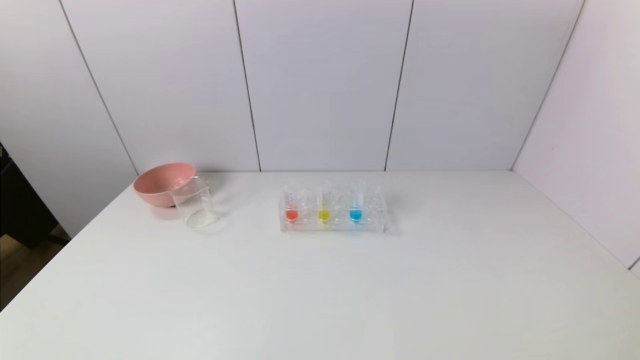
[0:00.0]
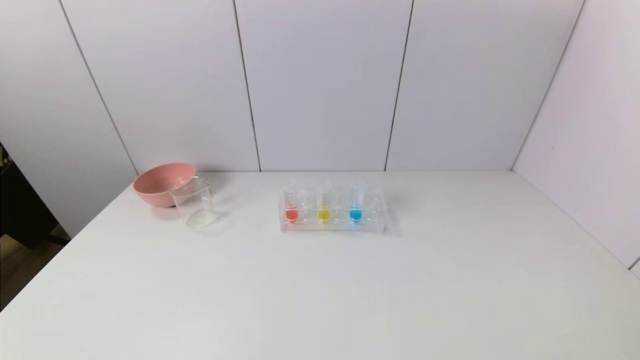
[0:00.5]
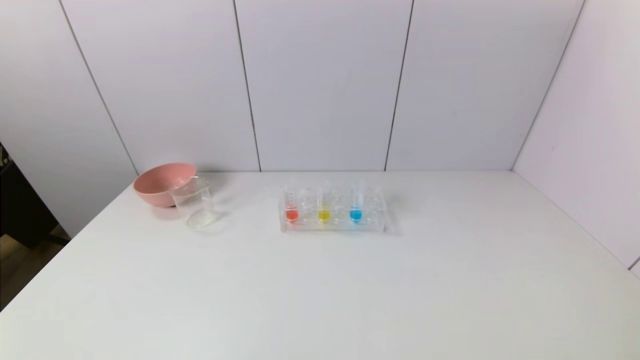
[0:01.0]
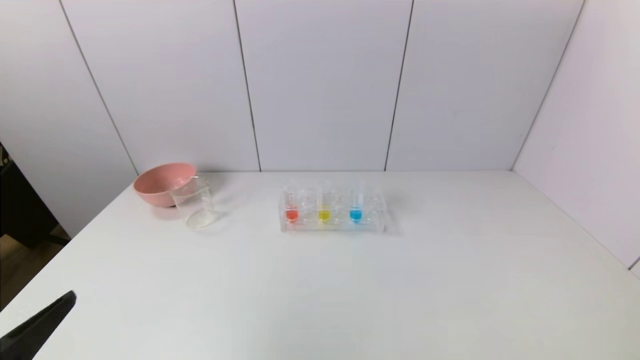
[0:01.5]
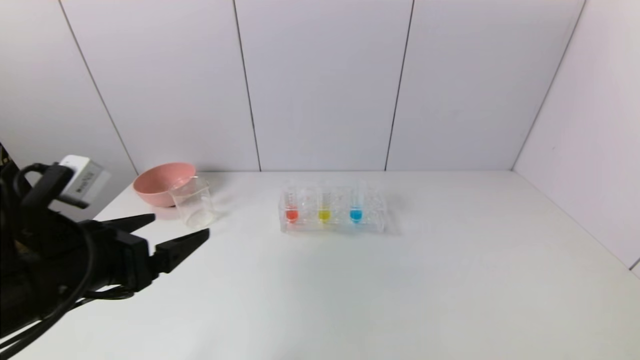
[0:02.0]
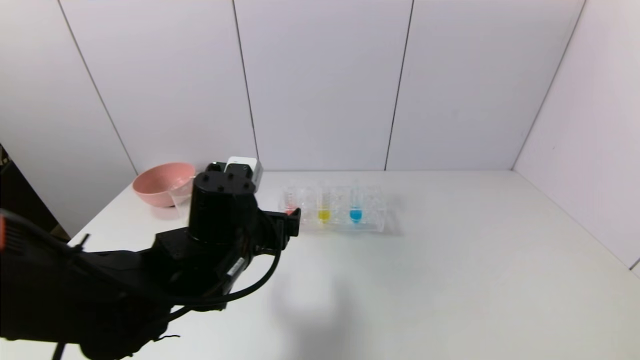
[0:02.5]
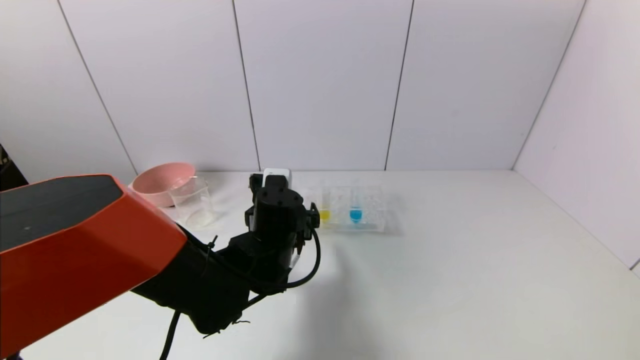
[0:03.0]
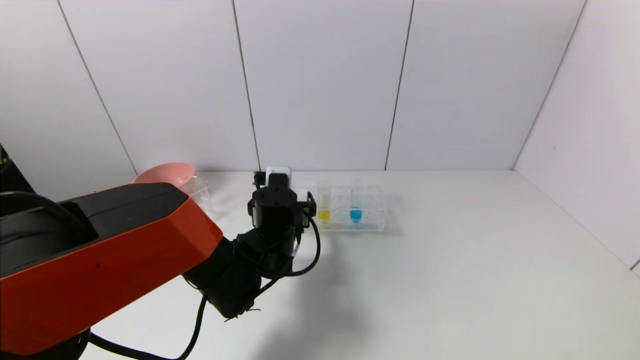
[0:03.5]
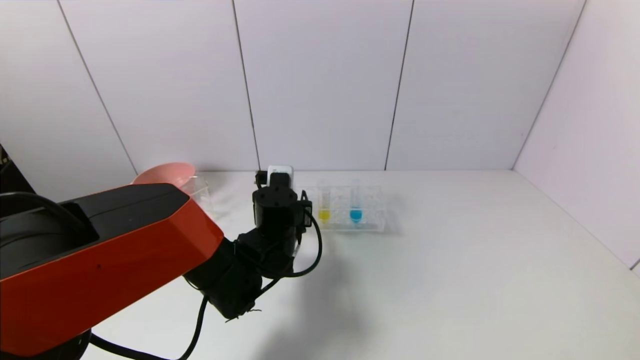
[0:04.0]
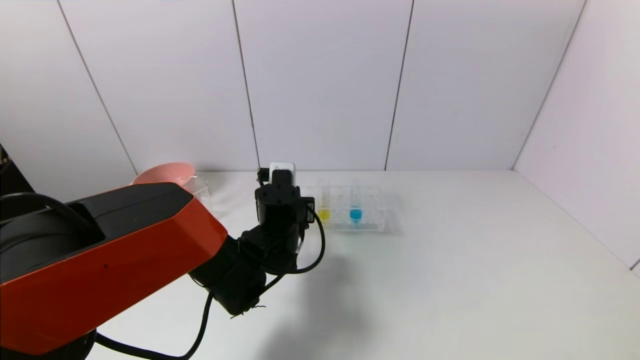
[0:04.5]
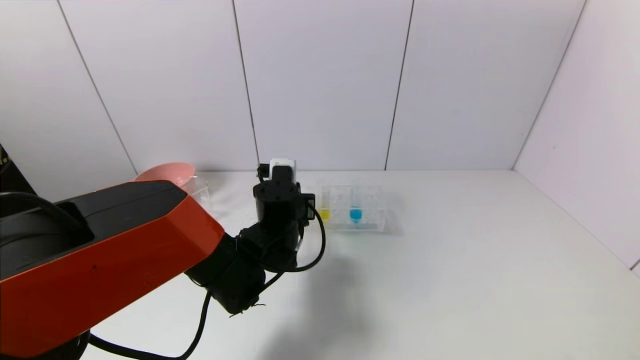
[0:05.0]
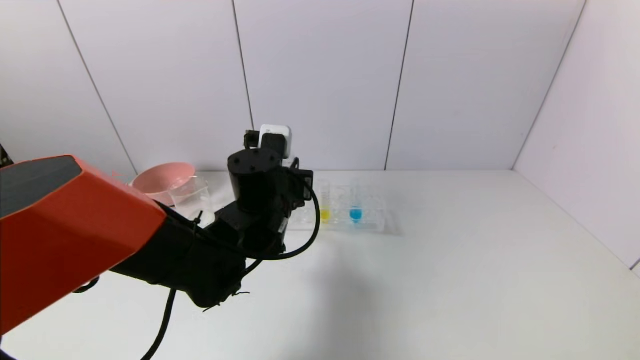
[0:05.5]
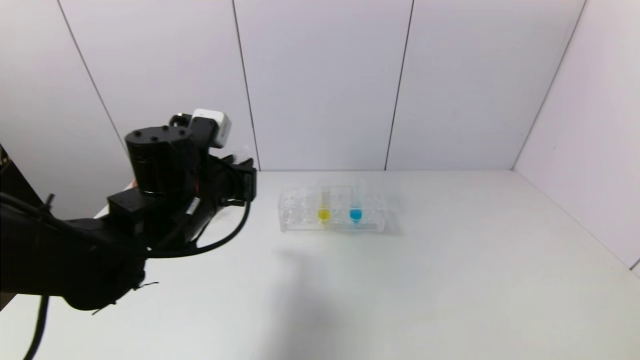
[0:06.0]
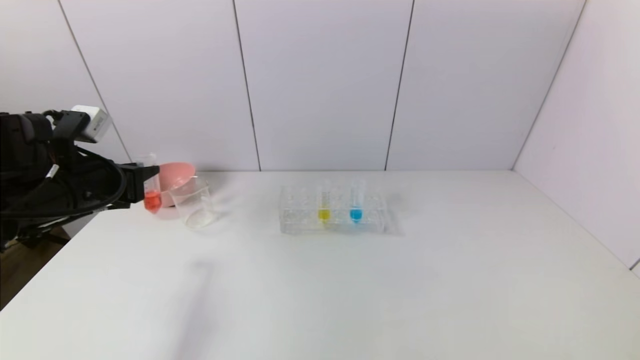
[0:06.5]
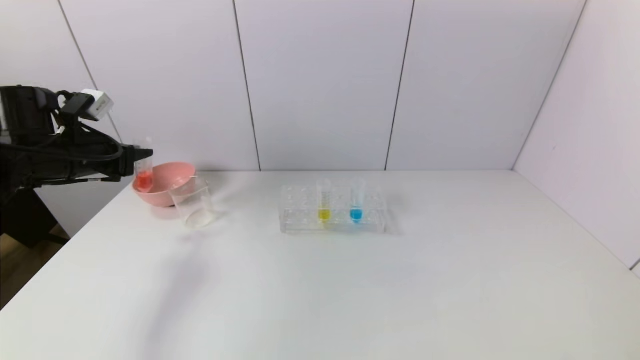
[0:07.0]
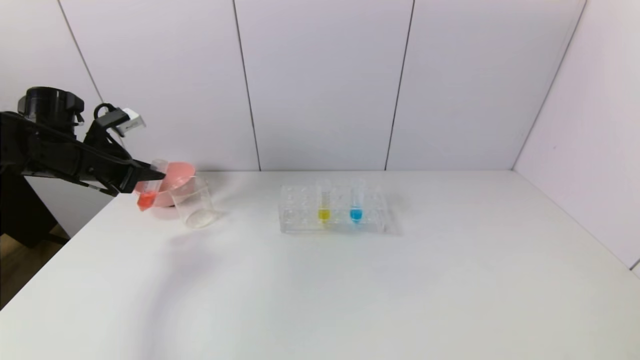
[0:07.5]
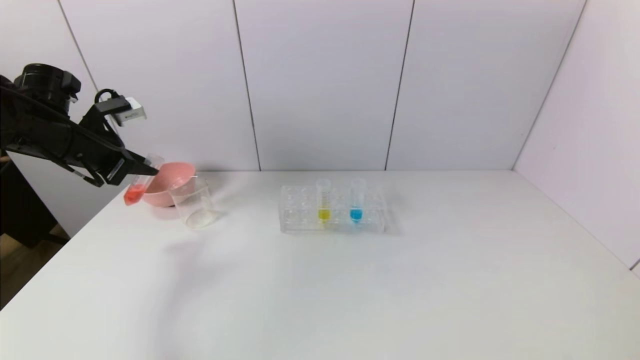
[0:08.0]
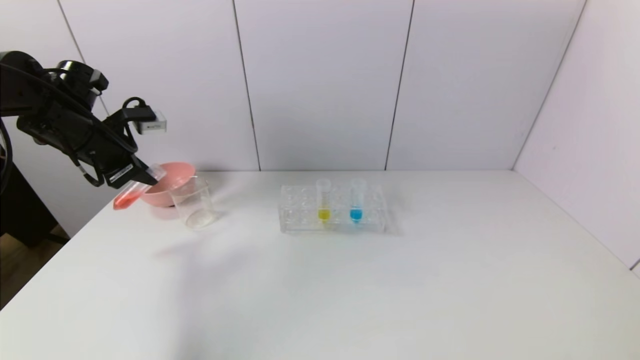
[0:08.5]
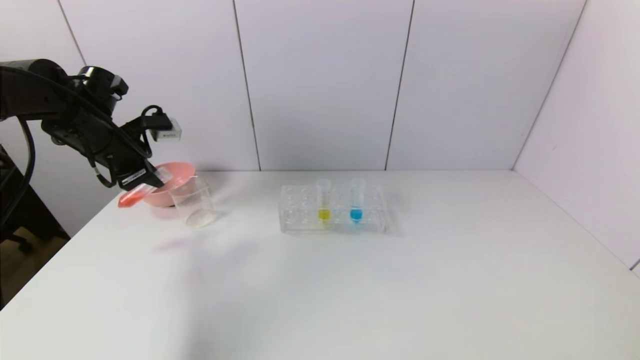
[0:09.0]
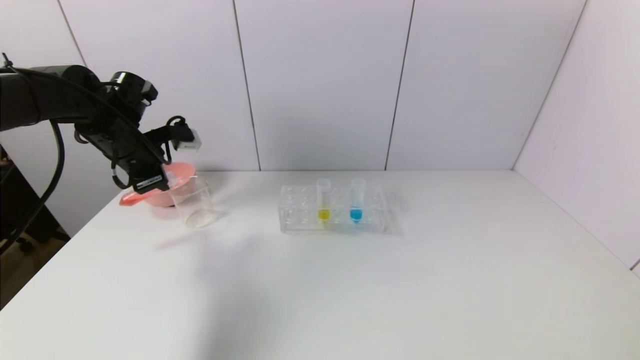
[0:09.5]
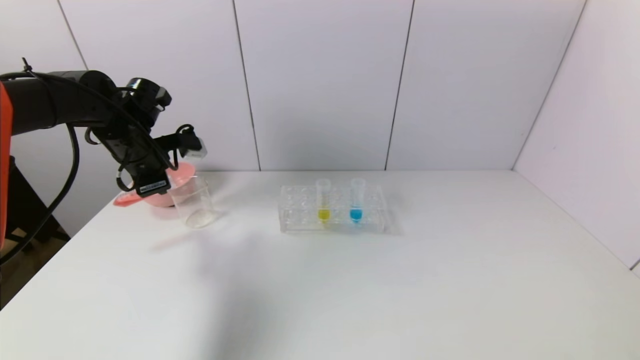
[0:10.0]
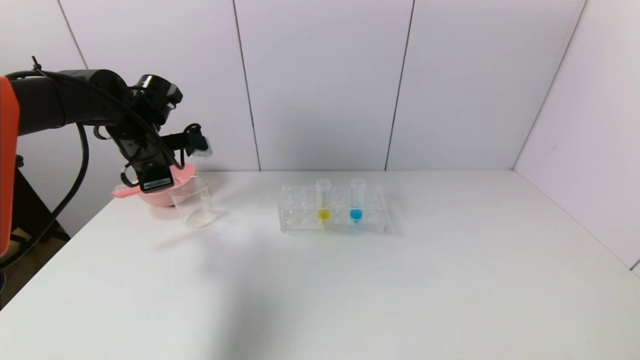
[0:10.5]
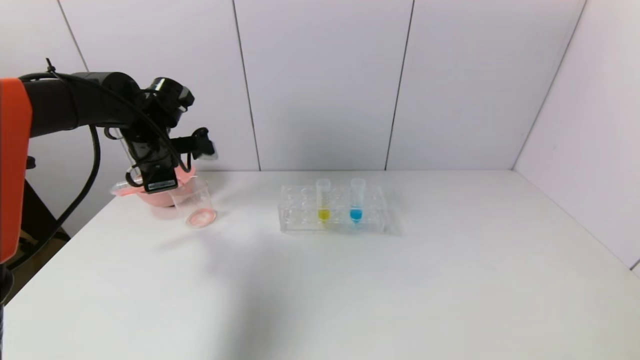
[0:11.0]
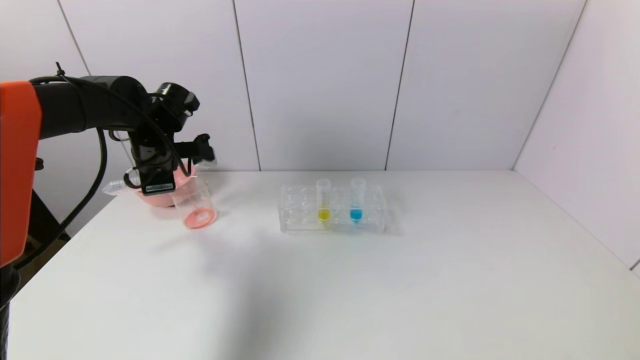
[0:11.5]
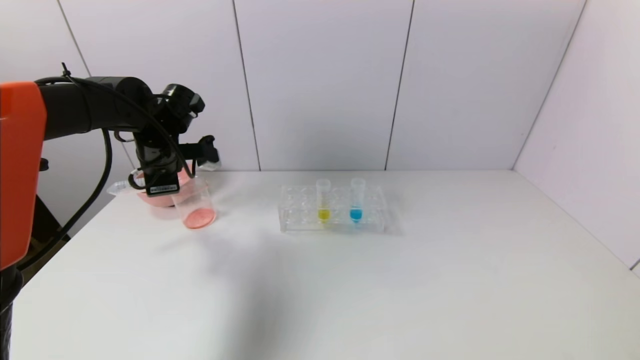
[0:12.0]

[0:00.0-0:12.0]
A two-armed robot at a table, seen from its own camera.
Task of the whole recording: pick up the test tube with yellow pigment and the test tube with red pigment by grippers and pour them into the beaker.
Step, 0:00.0 to 0:04.0: Grasp the red reagent with the left gripper.
0:00.0 to 0:02.0: The left gripper goes about 20 cm forward and upward.
0:02.0 to 0:04.0: The left gripper moves to the right, forward and downward, approximately 25 cm, and closes.
0:04.0 to 0:06.0: The left gripper goes approximately 15 cm to the left, upward and backward, and closes.
0:06.0 to 0:08.0: The left gripper travels to the left and forward by roughly 20 cm.
0:08.0 to 0:10.0: The left gripper moves to the right, approximately 5 cm.
0:10.0 to 0:12.0: The grippers make only small movements.

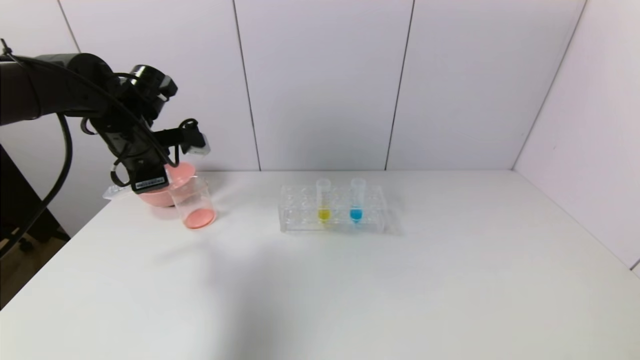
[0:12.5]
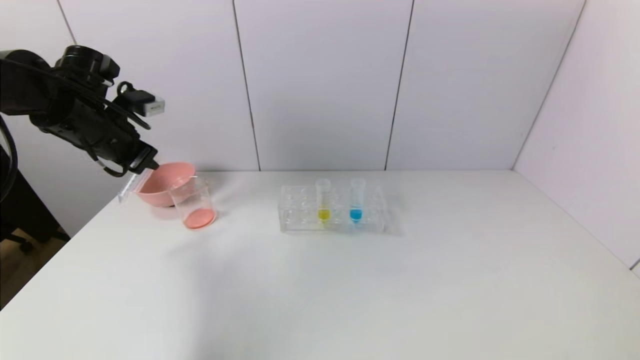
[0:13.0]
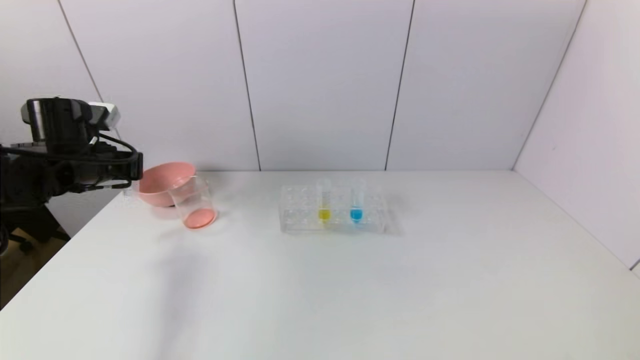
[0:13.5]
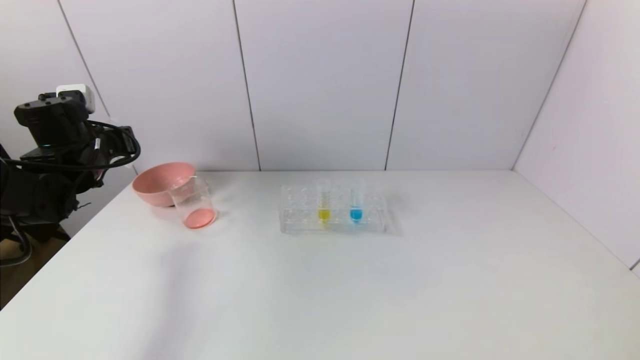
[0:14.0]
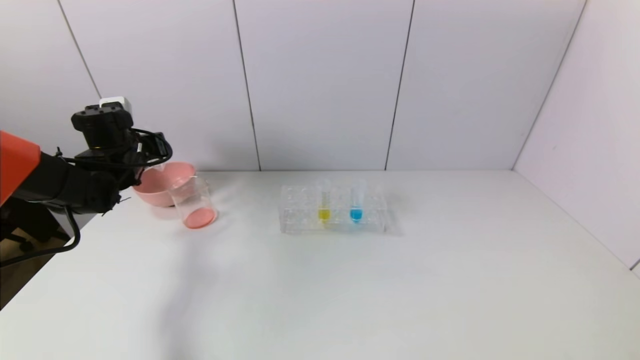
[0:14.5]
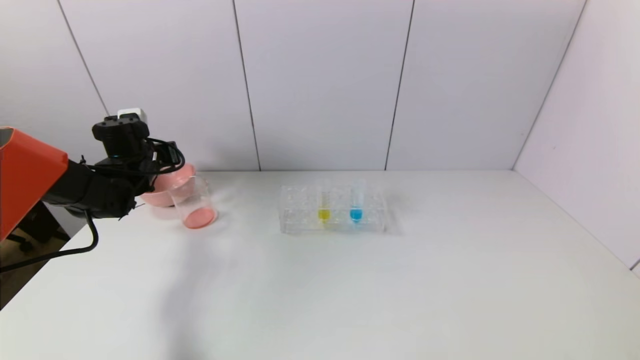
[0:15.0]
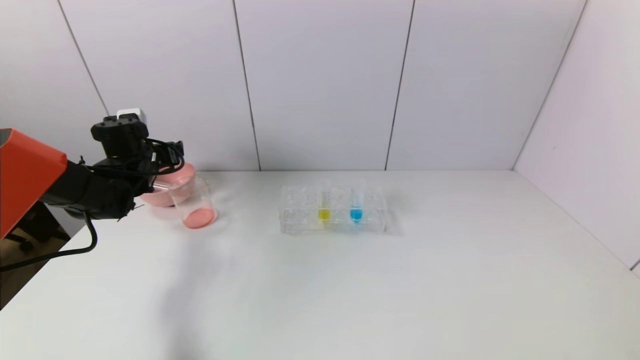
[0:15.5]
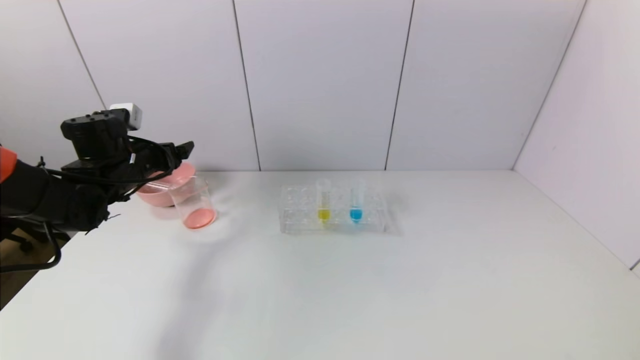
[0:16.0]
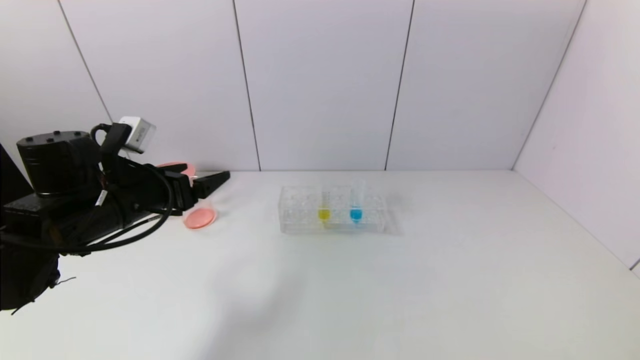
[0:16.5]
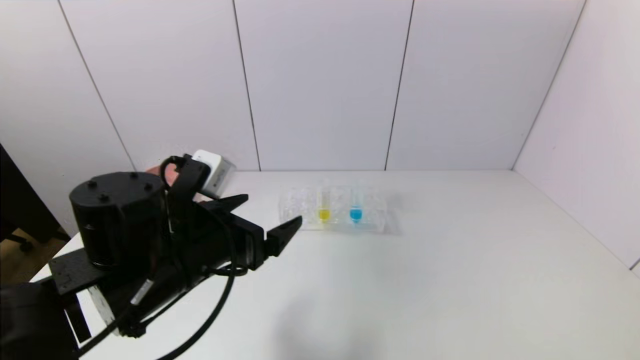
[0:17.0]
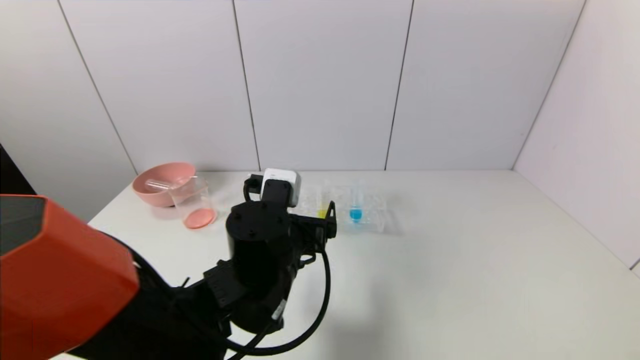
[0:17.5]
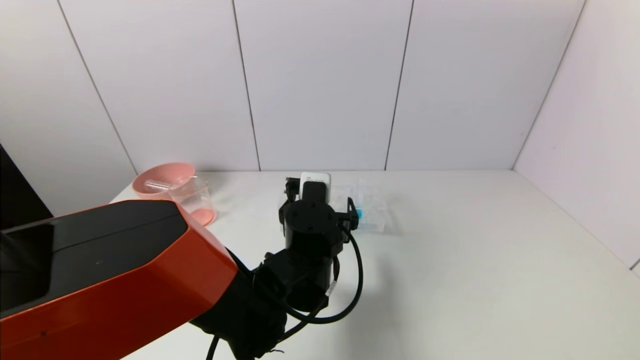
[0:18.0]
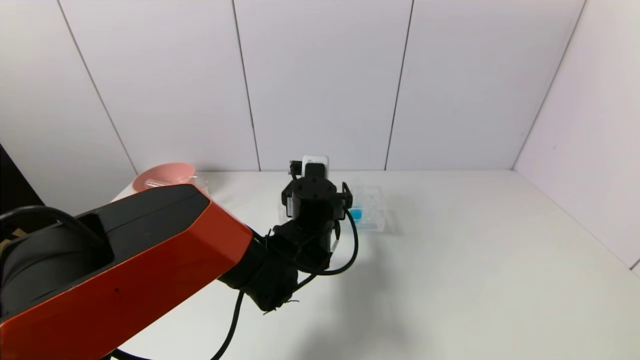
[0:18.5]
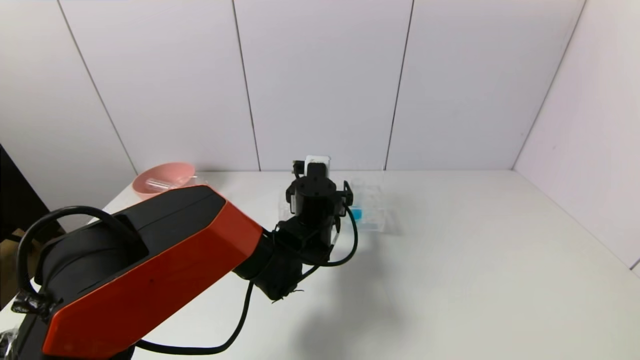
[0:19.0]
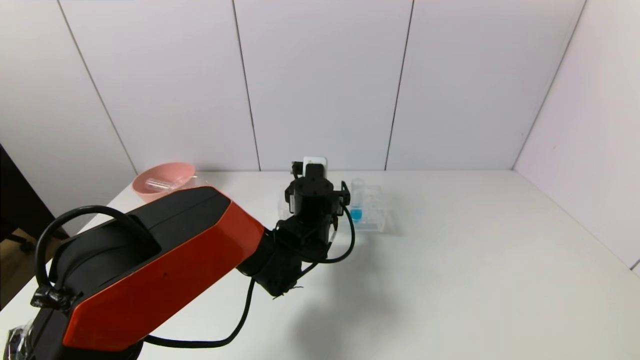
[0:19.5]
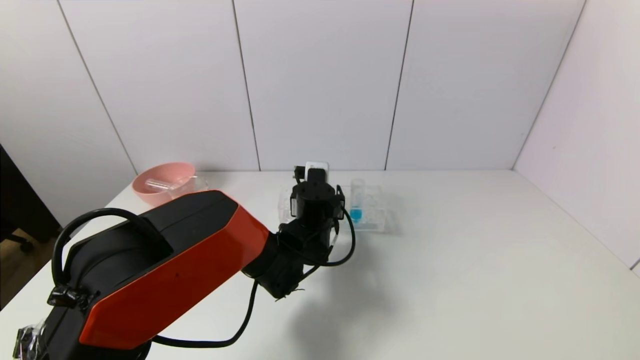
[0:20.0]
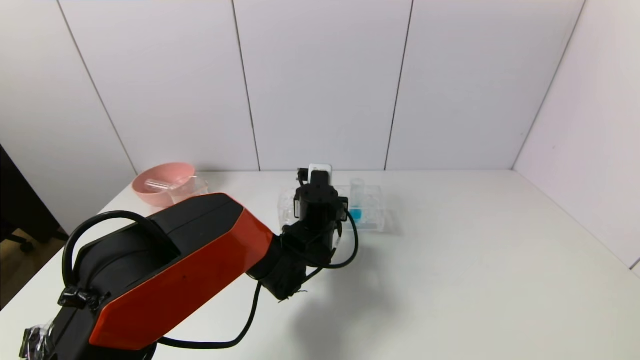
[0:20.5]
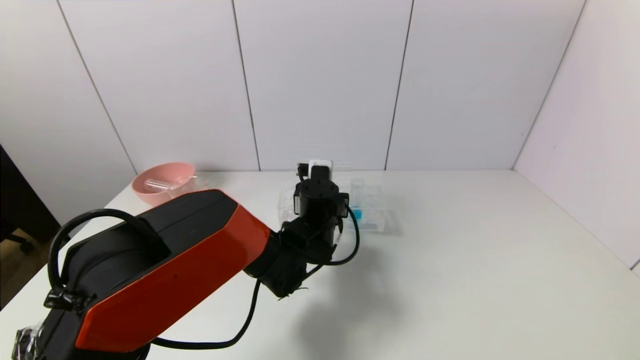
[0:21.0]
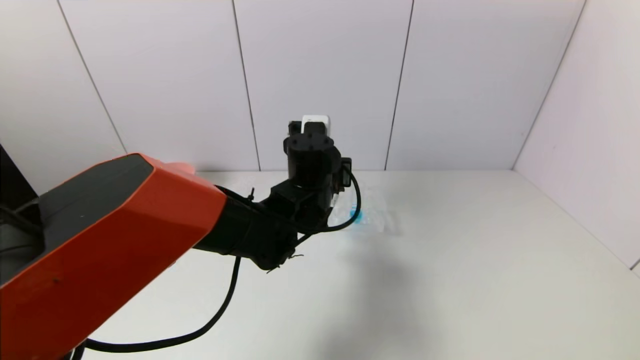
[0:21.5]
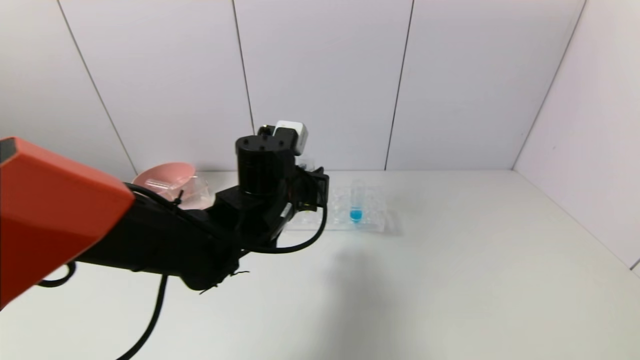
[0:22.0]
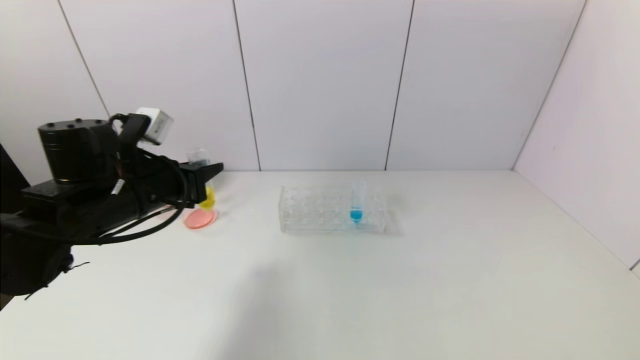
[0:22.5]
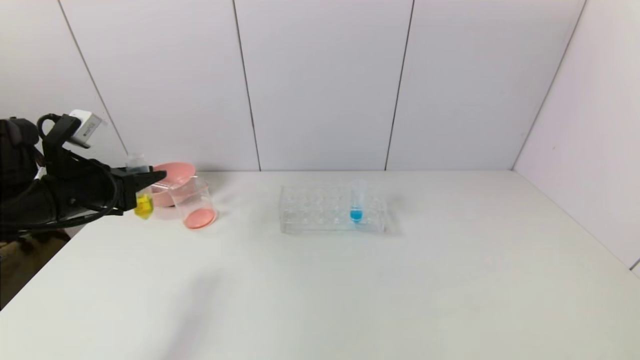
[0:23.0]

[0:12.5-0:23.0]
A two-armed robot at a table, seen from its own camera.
Task of the whole recording: pick up the test tube with yellow pigment and the test tube with red pigment by grippers and pour them into the beaker.
Step, 0:12.5 to 0:15.5: Place the test tube into the pink bowl with the left gripper.
Step, 0:16.0 to 0:20.0: Grasp the yellow reagent with the left gripper.
0:12.5 to 0:14.5: The left gripper moves downward and to the left, some 10 cm.
0:14.5 to 0:16.5: The left gripper is displaced backward and to the right by some 20 cm, and opens.
0:16.5 to 0:19.0: The left gripper goes roughly 25 cm to the right.
0:19.0 to 0:21.0: The left gripper closes its fingers.
0:21.0 to 0:23.0: The left gripper is displaced to the left by about 35 cm.
